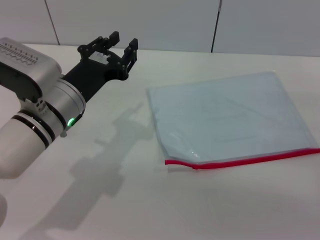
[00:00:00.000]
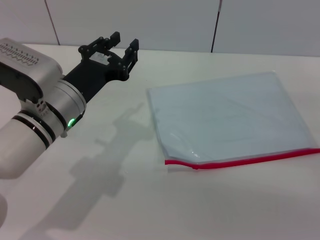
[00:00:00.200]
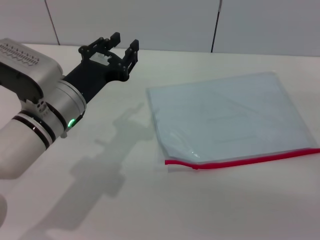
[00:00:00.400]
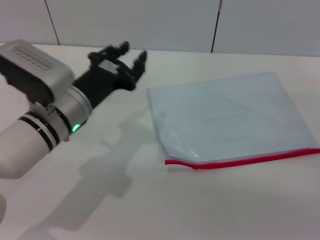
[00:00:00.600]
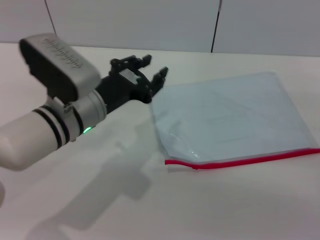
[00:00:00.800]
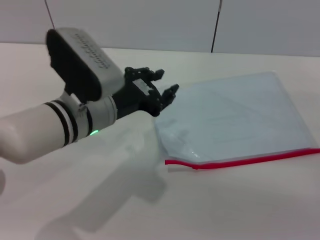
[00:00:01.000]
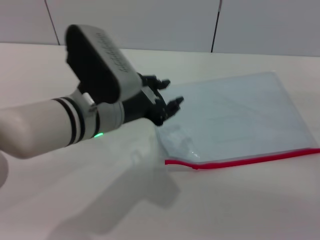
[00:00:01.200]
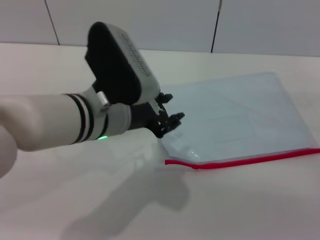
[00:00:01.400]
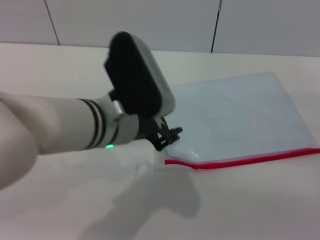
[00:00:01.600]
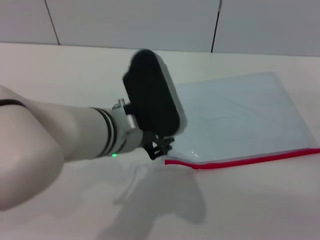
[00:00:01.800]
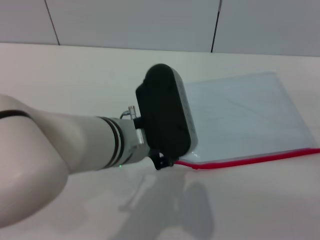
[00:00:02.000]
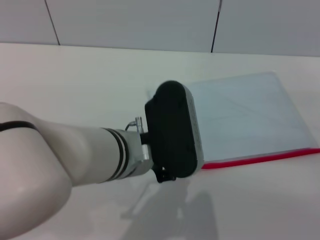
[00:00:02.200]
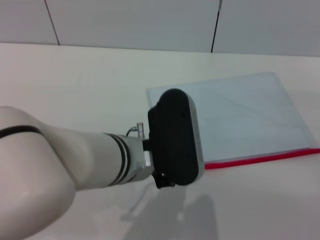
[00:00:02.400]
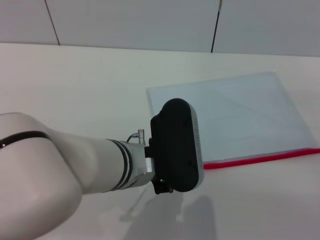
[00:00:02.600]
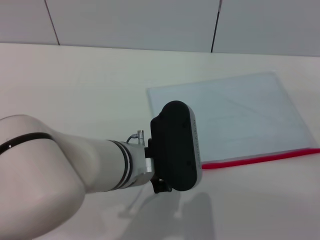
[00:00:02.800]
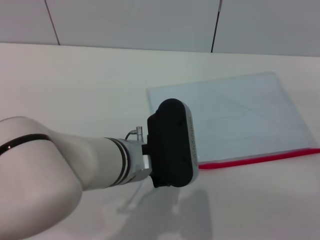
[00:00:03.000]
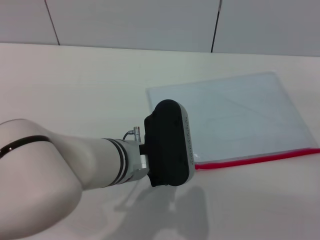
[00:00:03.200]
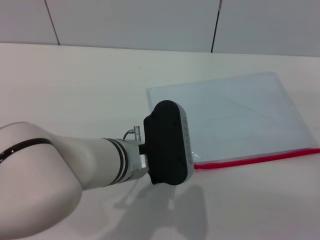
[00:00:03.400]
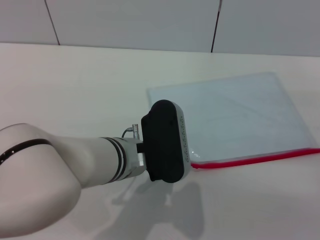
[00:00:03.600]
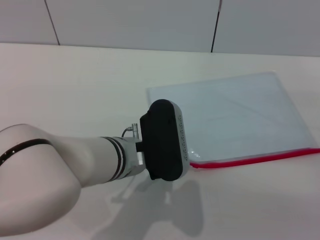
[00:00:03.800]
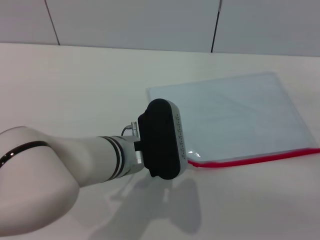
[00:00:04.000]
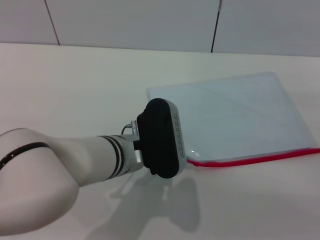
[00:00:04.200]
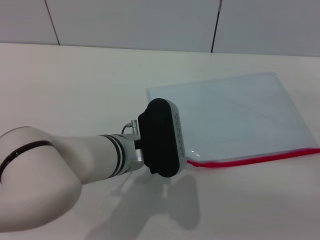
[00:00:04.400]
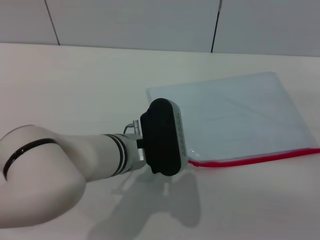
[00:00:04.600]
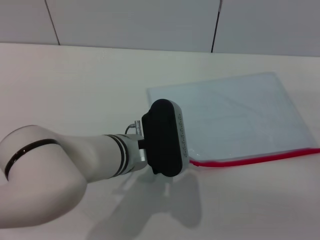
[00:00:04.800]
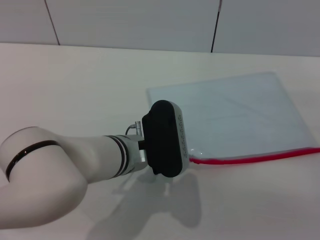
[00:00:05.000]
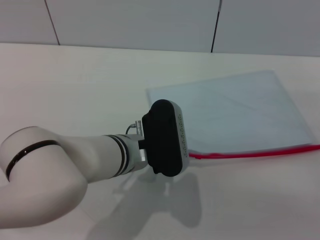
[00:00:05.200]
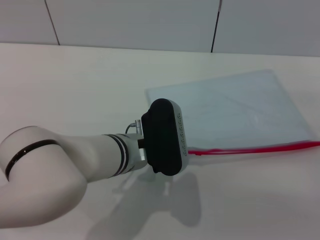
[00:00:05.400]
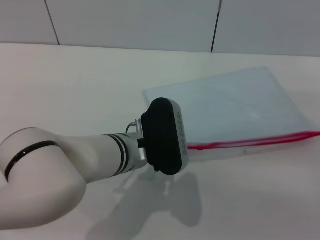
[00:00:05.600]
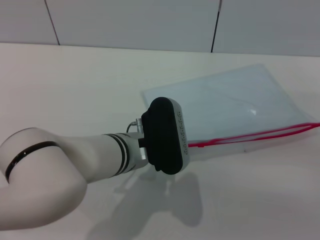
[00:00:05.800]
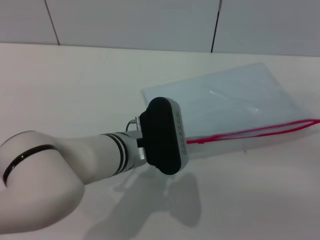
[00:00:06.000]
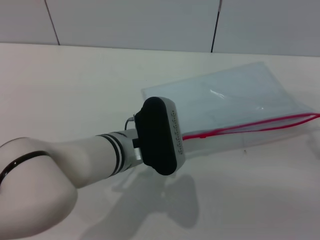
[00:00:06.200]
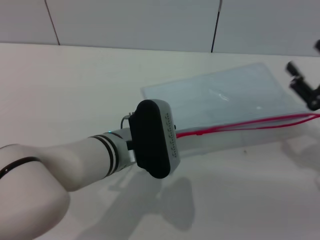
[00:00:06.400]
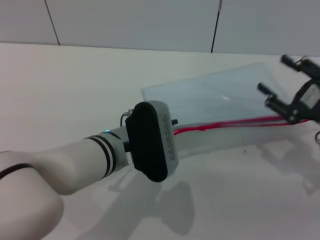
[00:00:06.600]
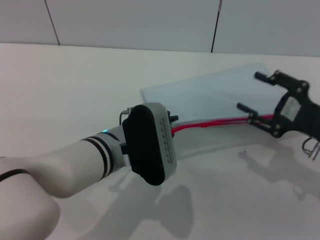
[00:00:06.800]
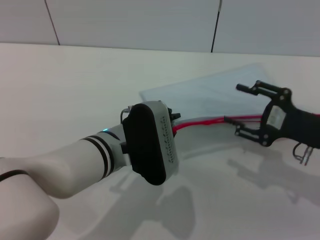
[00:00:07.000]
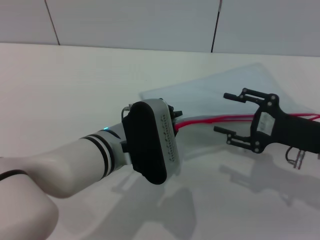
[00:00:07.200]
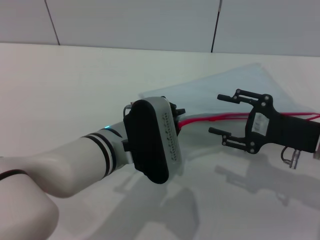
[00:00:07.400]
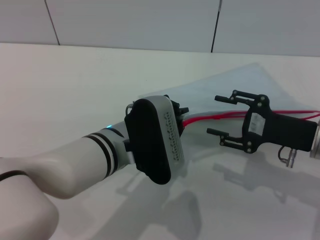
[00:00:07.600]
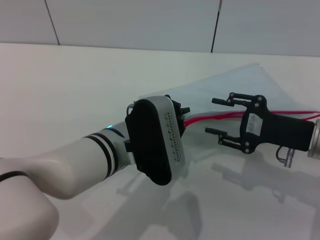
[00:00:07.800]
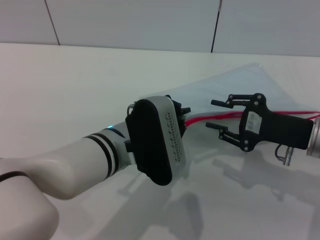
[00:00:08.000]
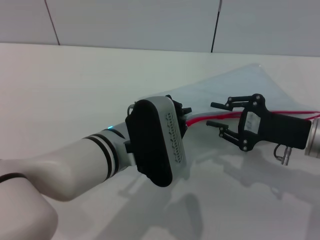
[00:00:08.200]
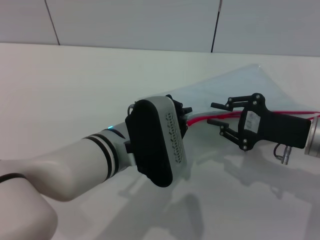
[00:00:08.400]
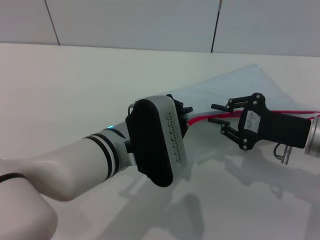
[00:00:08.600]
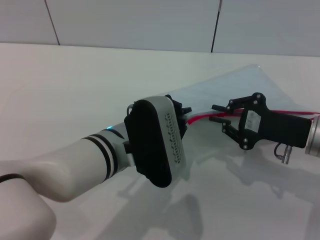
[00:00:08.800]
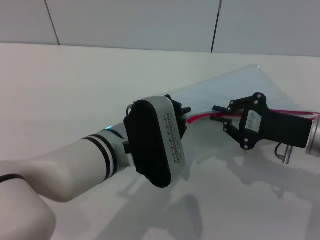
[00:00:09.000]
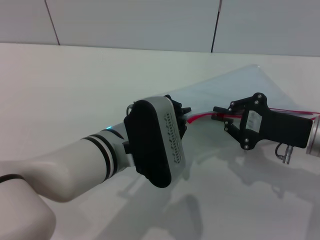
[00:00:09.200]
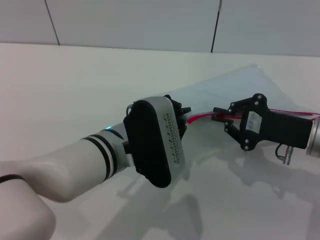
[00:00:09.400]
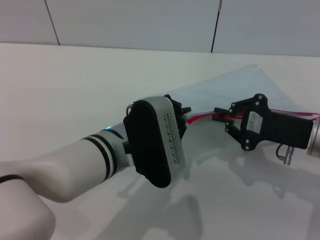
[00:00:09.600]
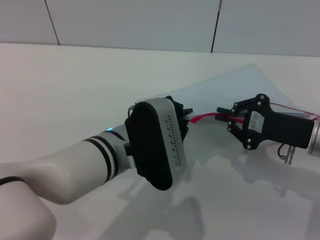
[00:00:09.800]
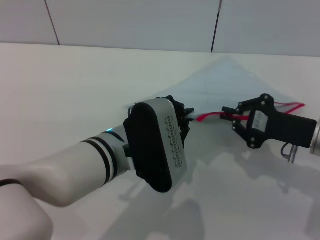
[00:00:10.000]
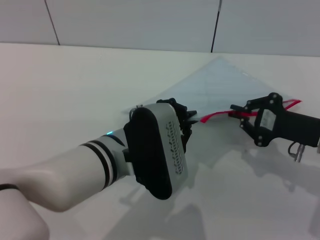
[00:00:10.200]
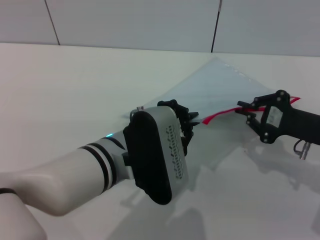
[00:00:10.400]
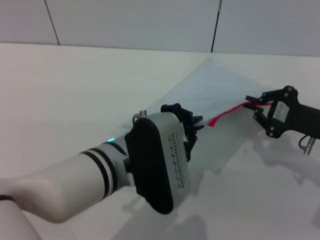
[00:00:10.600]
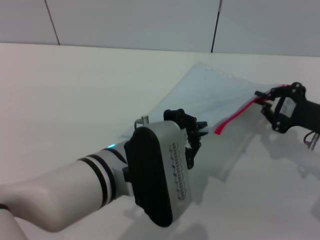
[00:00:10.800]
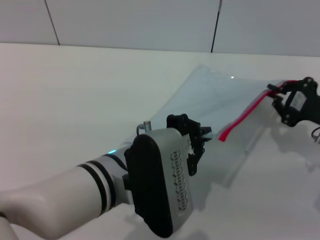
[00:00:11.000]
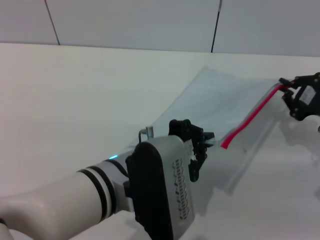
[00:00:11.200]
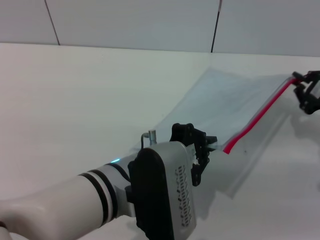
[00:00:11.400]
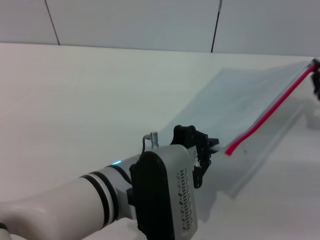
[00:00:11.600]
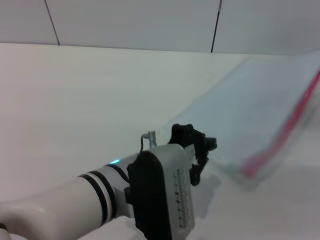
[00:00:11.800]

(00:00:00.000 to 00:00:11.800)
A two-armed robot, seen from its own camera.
Step, 00:00:00.000 - 00:00:06.800: Pick up the transparent plastic bag with the left gripper.
Step, 00:00:07.000 - 00:00:11.400: Pulling up the zipper on the transparent plastic bag with the right gripper to close it.
00:00:00.000 - 00:00:01.400: The left gripper is displaced to the right and upward by approximately 10 cm.
00:00:01.400 - 00:00:03.000: The left gripper moves about 5 cm.
00:00:03.000 - 00:00:04.400: The grippers make only small movements.
00:00:04.400 - 00:00:06.000: The left gripper closes.
00:00:06.000 - 00:00:07.400: The right gripper goes some 5 cm to the left.
00:00:07.400 - 00:00:08.800: The right gripper closes.
00:00:08.800 - 00:00:10.400: There are only small adjustments of the grippers.
00:00:10.400 - 00:00:11.800: The right gripper shifts roughly 5 cm to the right.

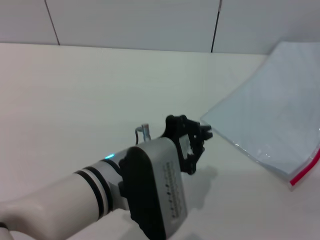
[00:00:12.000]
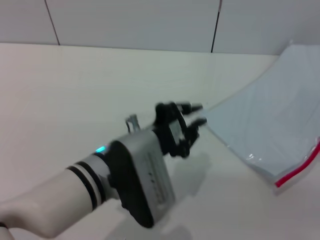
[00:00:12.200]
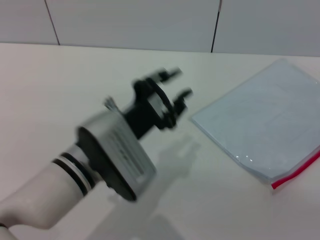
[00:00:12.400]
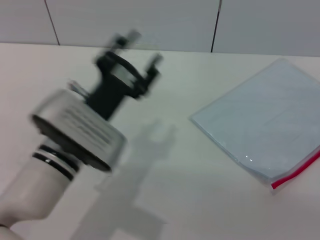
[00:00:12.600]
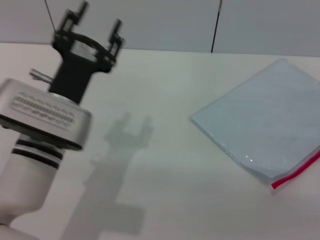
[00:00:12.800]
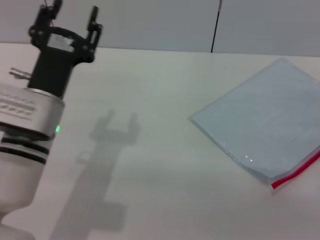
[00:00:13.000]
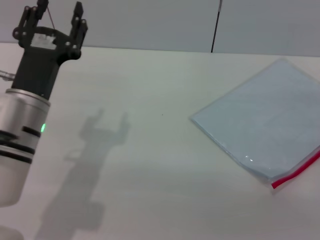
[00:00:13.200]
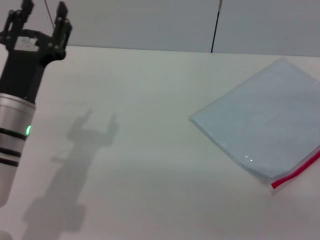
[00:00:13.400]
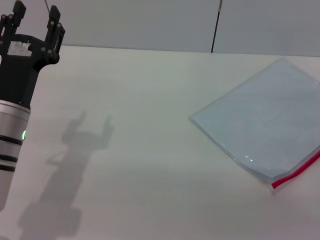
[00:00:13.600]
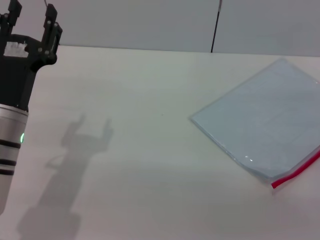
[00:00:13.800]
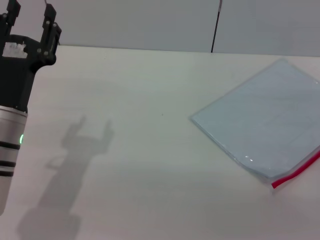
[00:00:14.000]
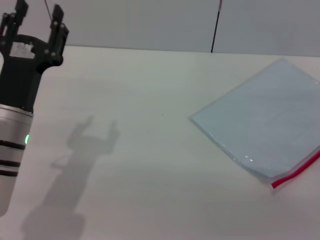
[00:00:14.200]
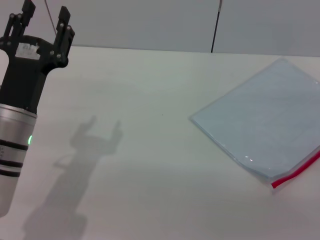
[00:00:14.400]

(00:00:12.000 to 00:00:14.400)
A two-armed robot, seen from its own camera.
00:00:12.000 - 00:00:13.200: The left gripper travels to the left and forward by roughly 15 cm, and opens its fingers, while the right gripper shifts some 5 cm backward, and opens up.
00:00:13.200 - 00:00:14.400: The grippers make only small movements.
